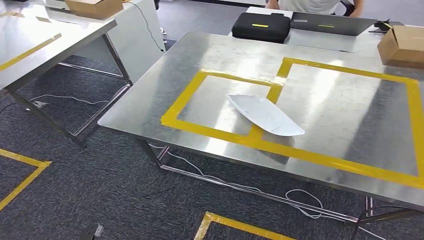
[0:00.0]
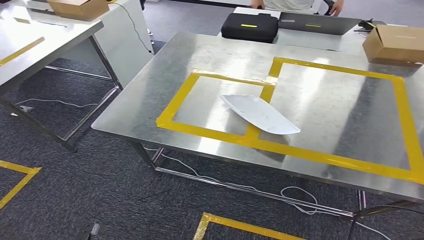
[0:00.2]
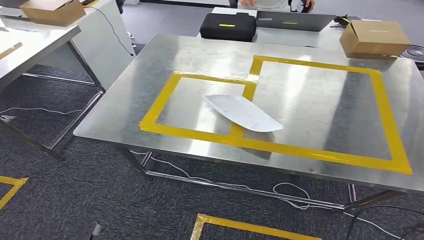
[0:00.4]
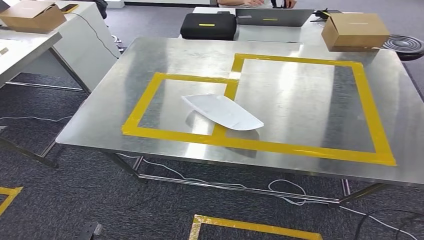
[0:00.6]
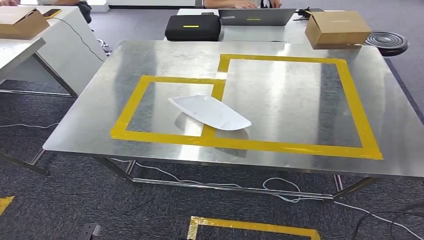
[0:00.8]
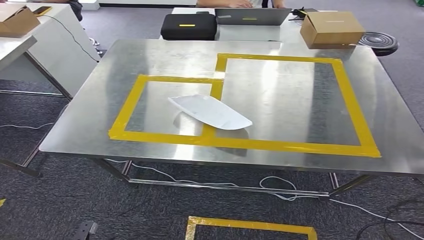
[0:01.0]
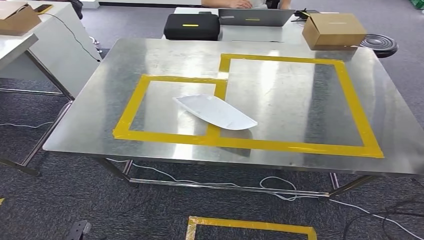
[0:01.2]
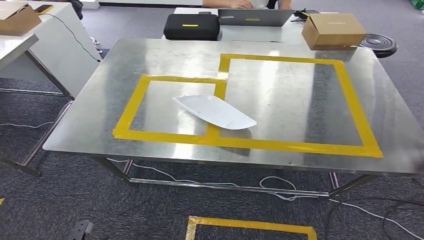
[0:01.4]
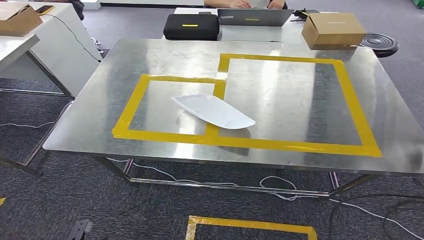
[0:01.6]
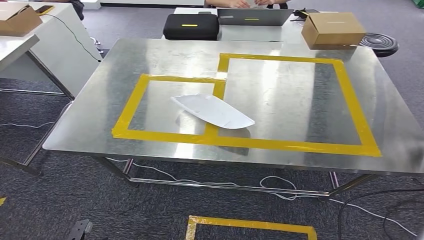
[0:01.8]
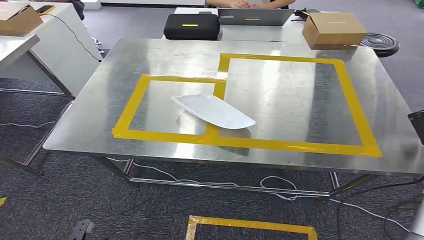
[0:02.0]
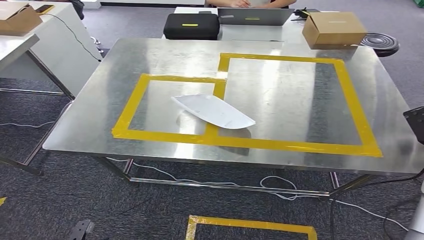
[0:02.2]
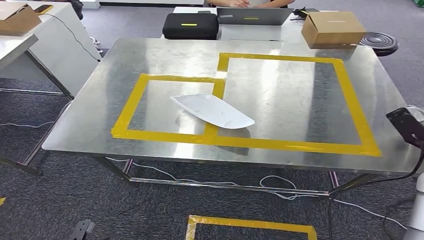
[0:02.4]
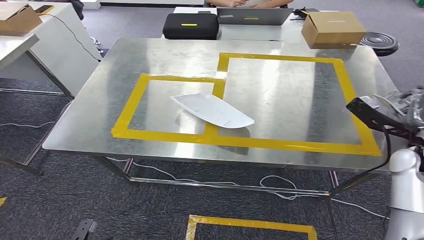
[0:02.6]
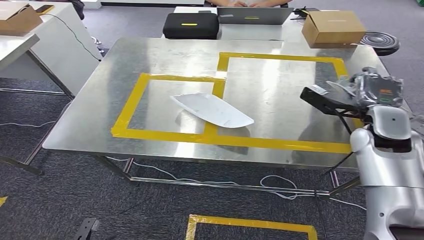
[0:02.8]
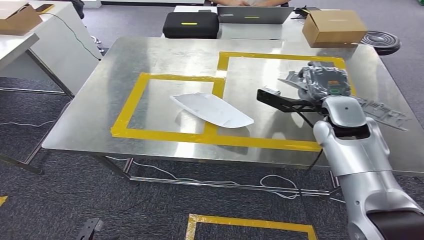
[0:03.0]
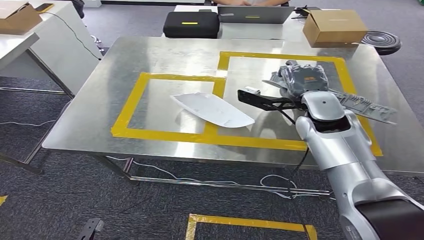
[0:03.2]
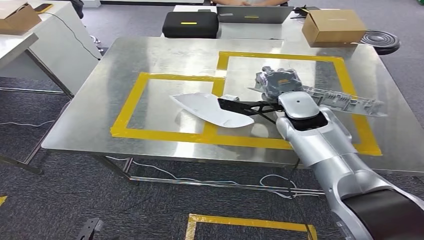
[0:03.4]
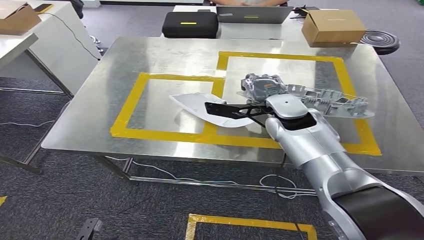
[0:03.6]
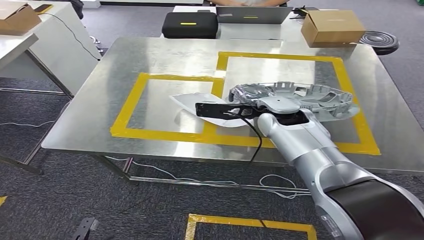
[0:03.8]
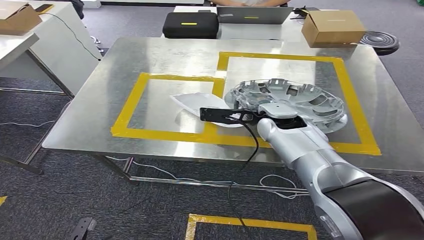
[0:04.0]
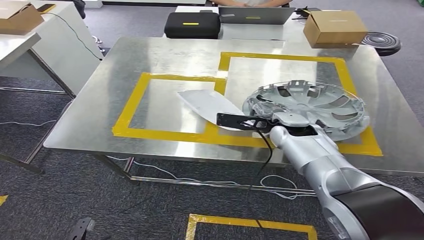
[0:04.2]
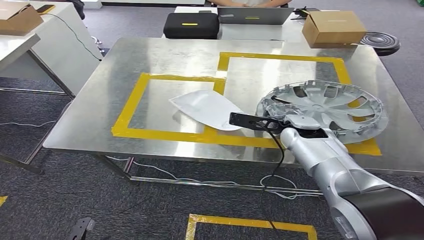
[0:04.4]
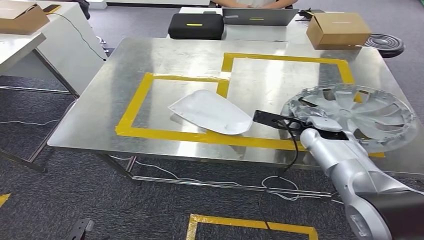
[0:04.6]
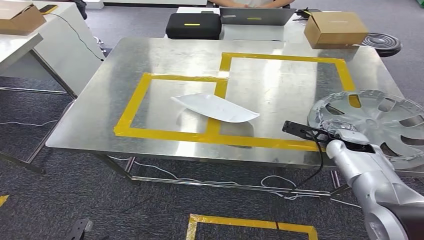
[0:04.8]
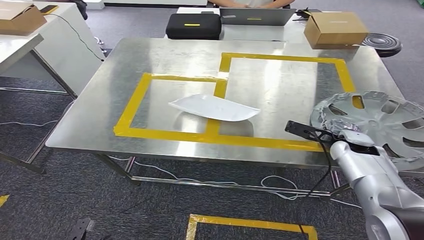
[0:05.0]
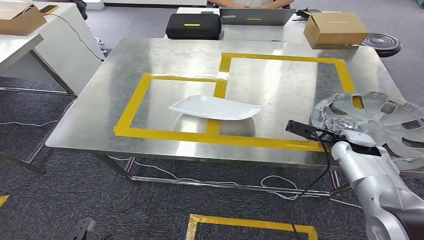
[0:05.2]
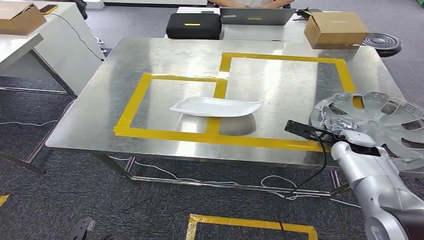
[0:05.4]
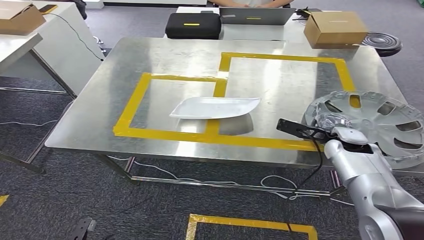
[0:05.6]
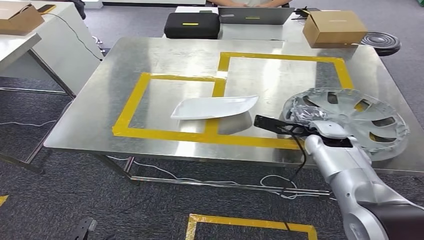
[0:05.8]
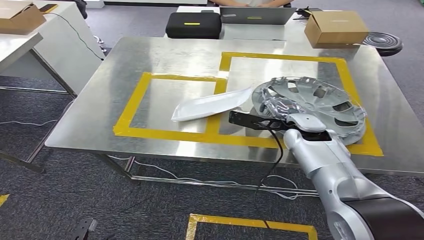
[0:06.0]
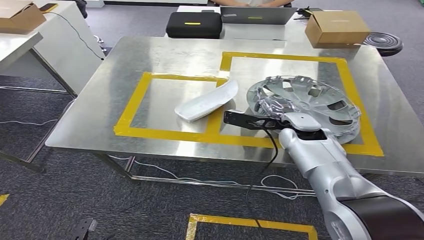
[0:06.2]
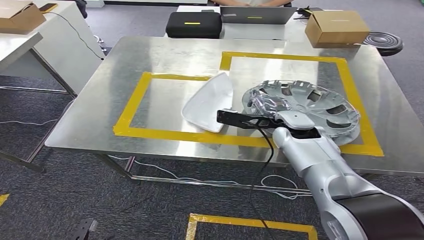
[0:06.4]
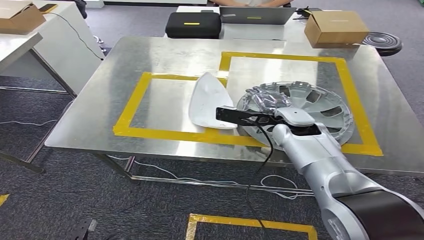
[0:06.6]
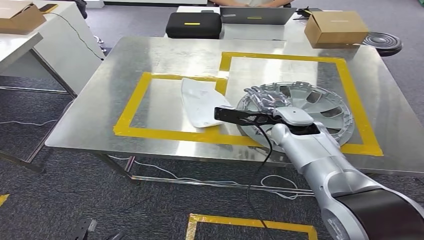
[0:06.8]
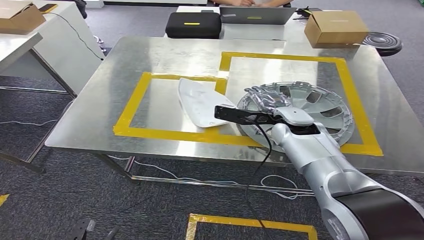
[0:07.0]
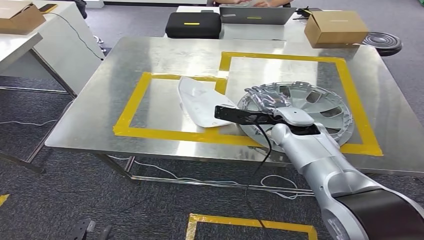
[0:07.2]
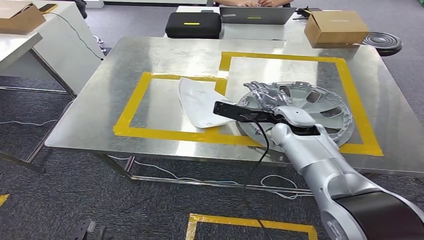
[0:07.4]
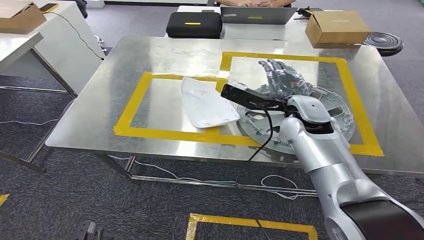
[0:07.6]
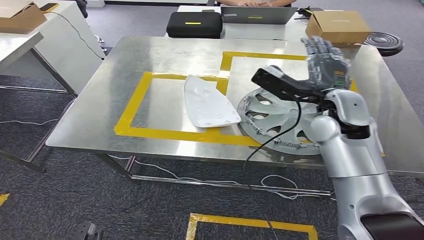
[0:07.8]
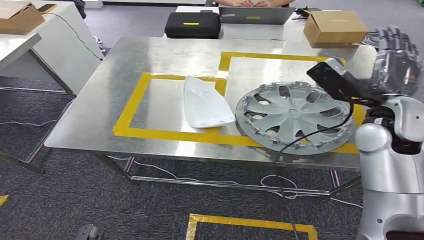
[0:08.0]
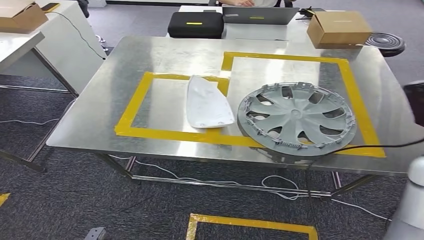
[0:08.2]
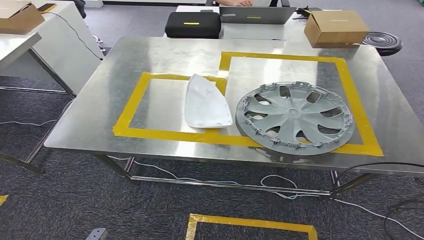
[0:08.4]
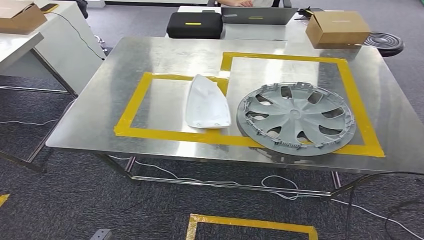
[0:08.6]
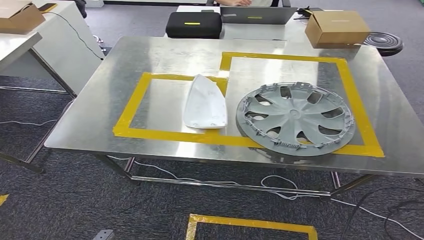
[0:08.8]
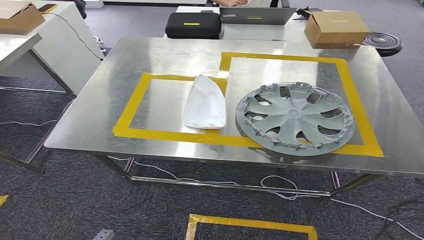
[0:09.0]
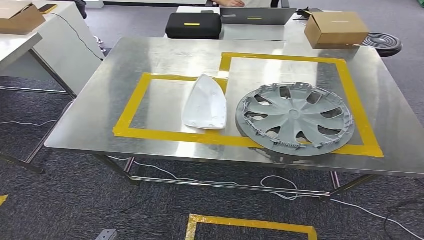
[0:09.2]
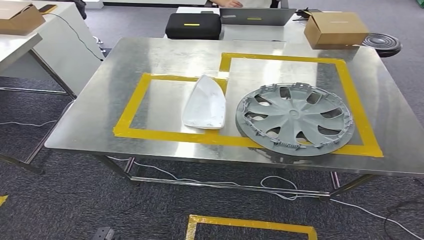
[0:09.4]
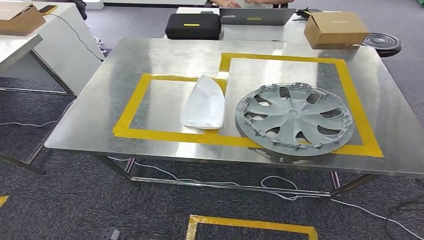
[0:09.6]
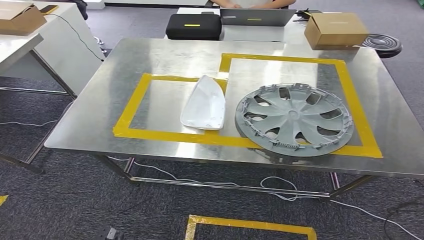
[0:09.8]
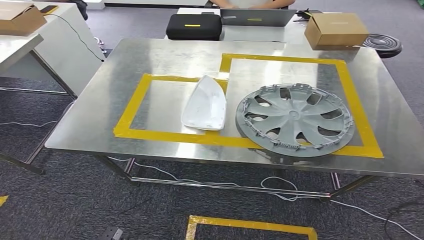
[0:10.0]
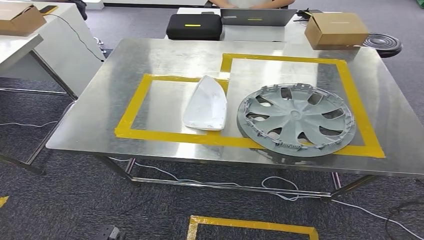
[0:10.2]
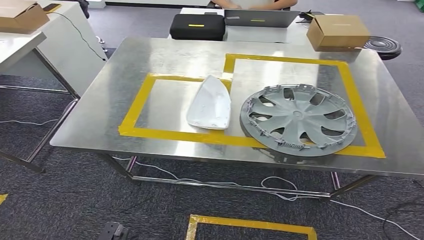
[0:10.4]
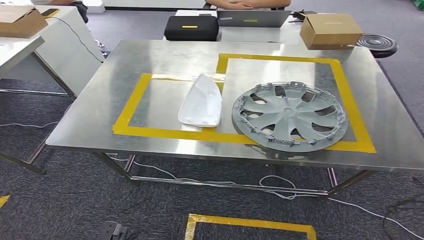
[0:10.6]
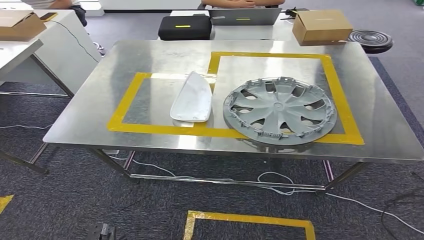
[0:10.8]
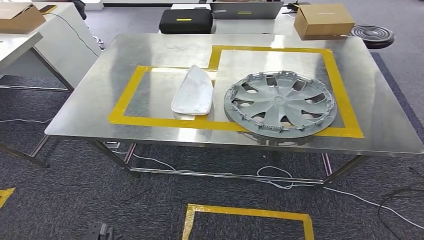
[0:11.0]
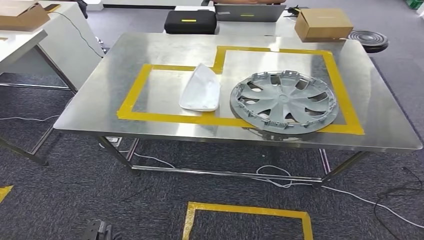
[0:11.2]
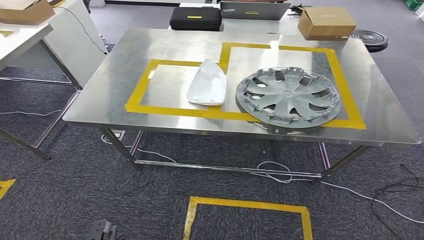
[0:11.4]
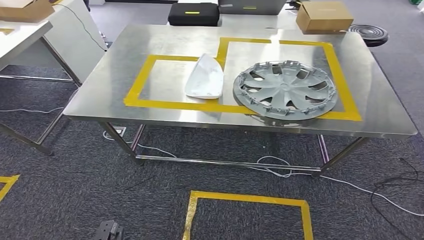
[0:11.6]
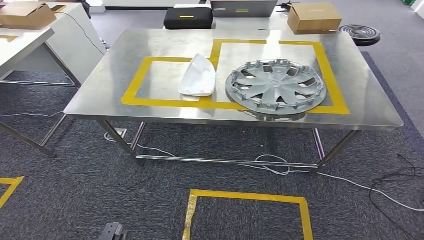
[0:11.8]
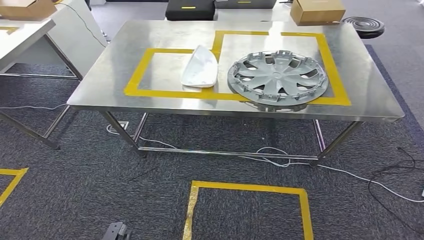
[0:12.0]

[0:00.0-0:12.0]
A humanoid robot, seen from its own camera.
Step, 0:00.0 to 0:09.2: Insert the small component into the corresponding slot on the workbench.
0:03.0 to 0:04.4: The right hand travels downward and to the left by about 10 cm.
0:04.4 to 0:06.0: The right hand moves roughly 15 cm to the right and comes back.
0:06.0 to 0:07.6: The right hand heads upward, covering approximately 5 cm.
0:07.6 to 0:09.0: The right hand is displaced backward and to the right by some 50 cm.
0:09.0 to 0:10.4: The right hand shifts about 40 cm downward and to the left.

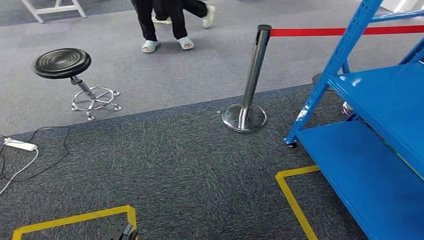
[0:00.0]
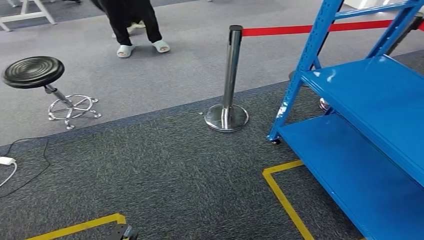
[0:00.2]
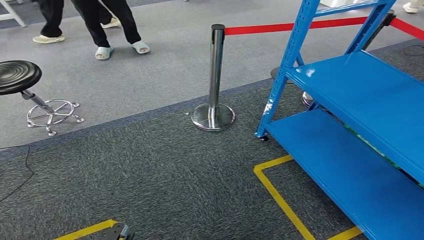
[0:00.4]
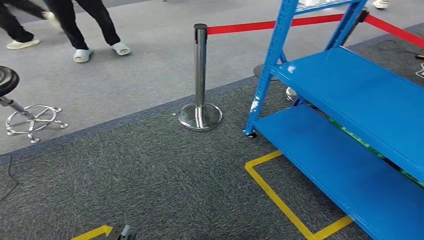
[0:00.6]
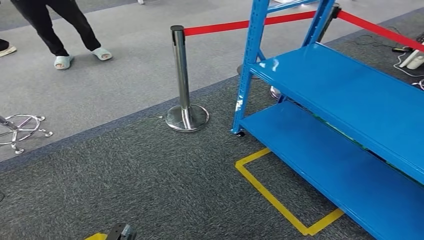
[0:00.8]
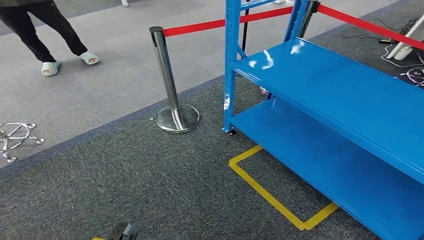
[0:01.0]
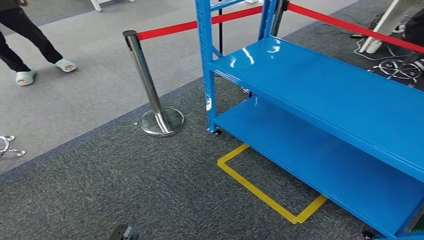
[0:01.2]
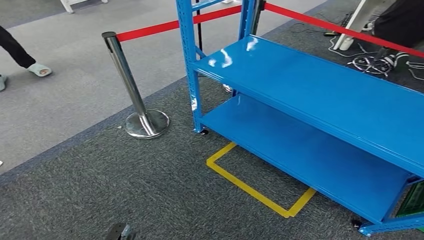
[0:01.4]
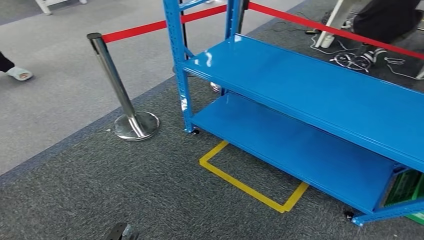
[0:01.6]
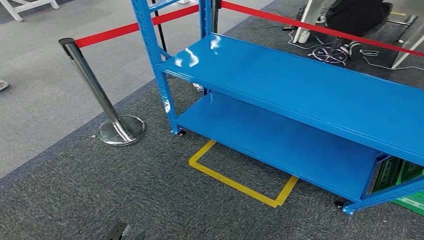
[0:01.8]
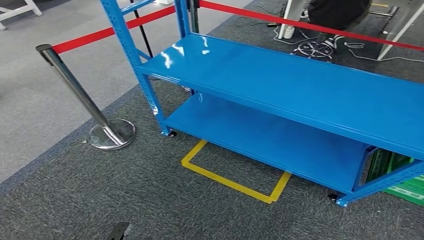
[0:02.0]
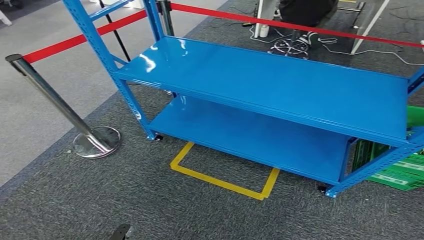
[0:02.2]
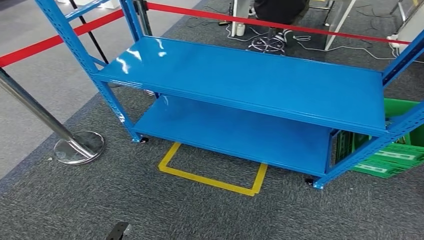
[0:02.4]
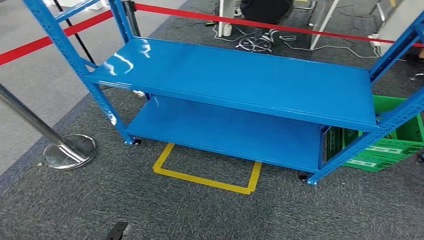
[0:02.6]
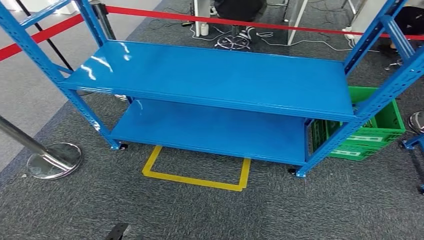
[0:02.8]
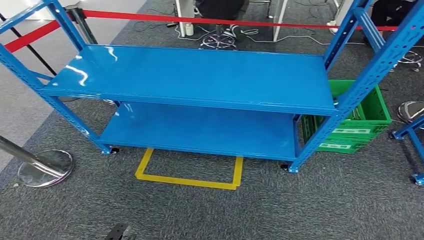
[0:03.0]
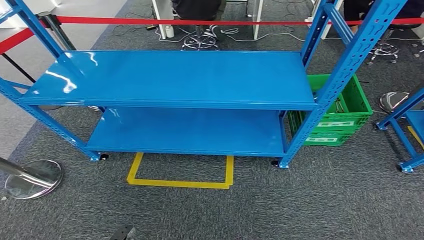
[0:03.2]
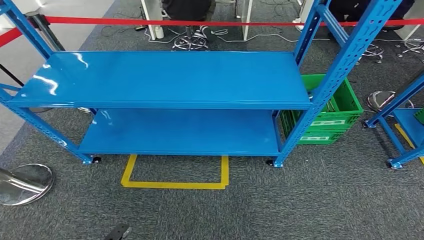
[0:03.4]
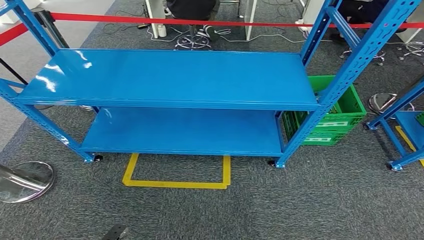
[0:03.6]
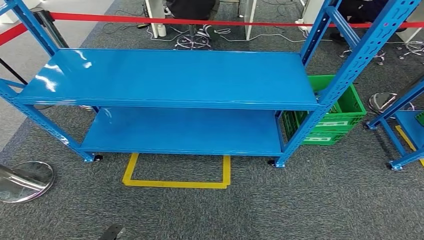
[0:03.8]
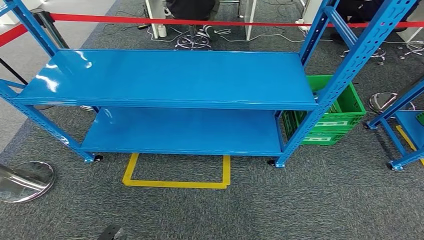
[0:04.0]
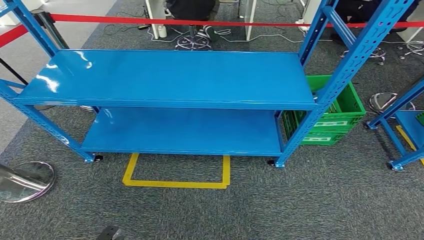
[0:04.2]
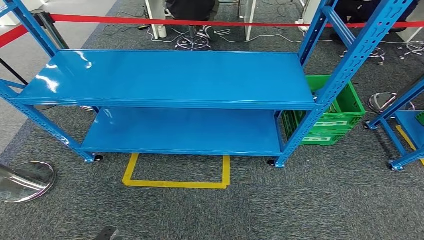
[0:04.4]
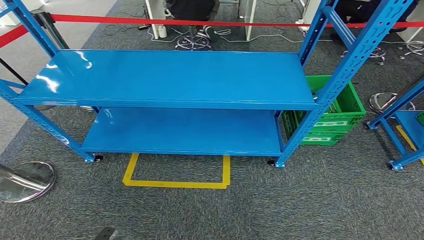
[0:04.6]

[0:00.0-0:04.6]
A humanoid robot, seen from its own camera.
Step, 0:00.0 to 0:04.6: Move to the initial position of the workbench.
